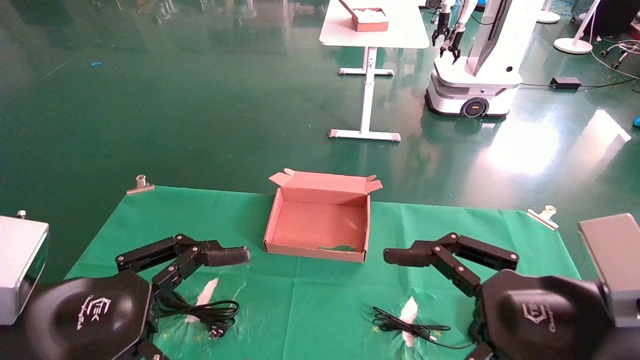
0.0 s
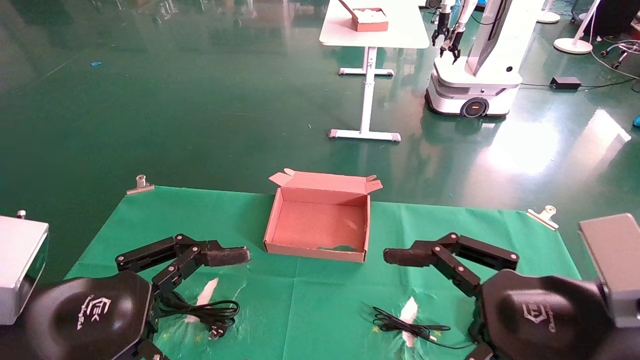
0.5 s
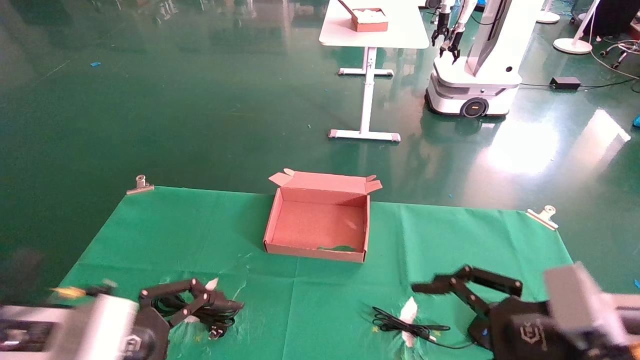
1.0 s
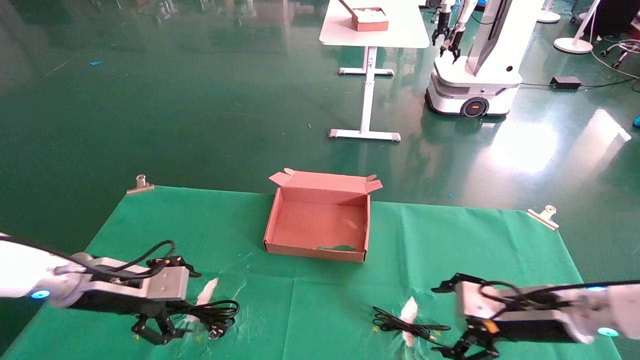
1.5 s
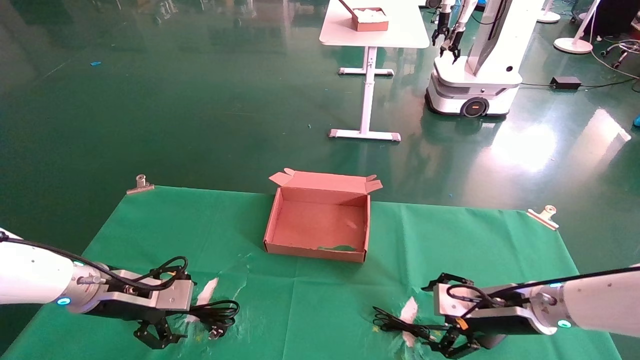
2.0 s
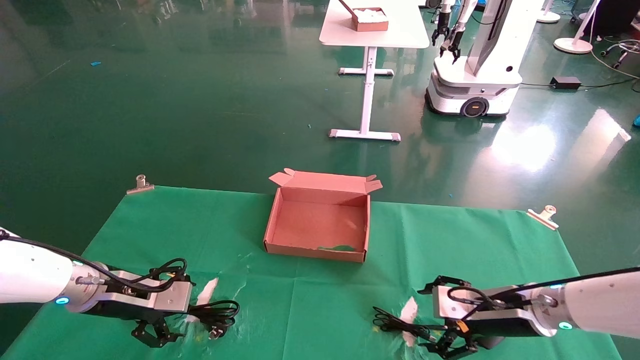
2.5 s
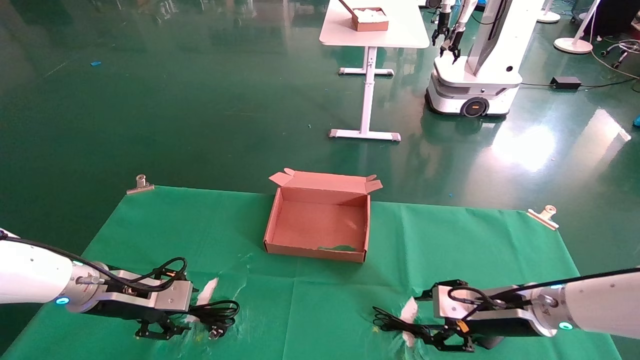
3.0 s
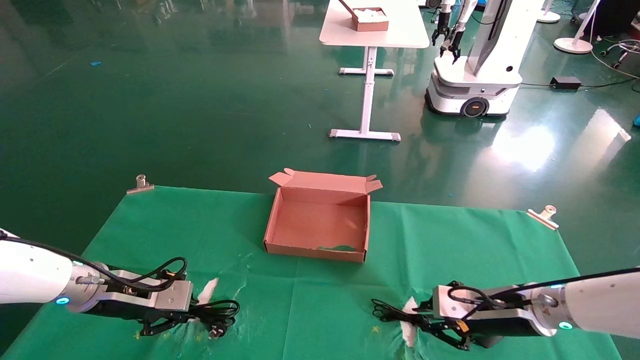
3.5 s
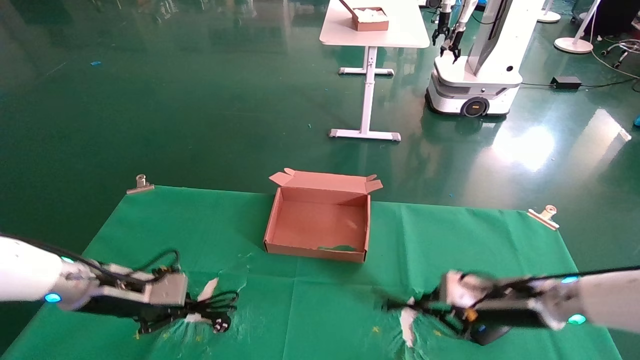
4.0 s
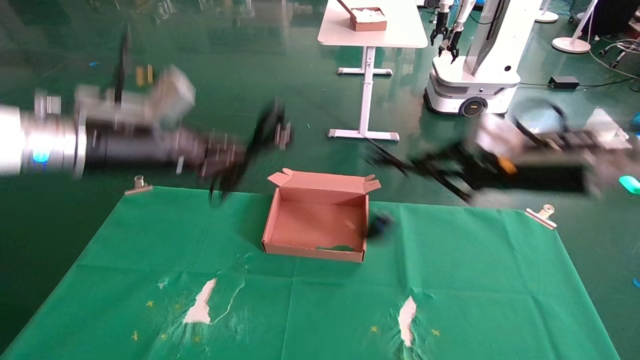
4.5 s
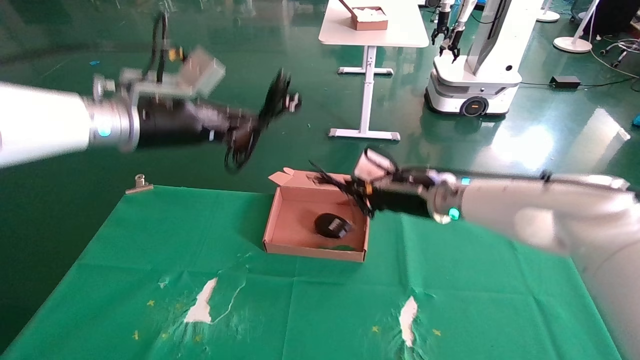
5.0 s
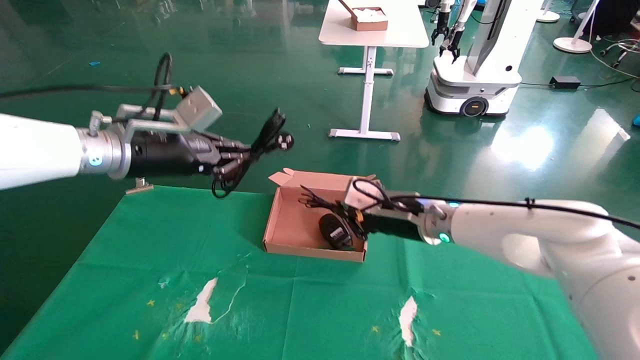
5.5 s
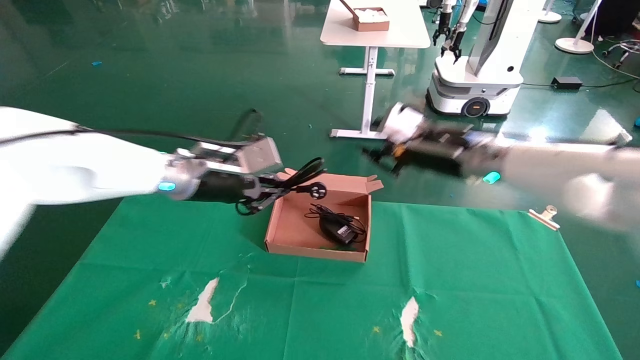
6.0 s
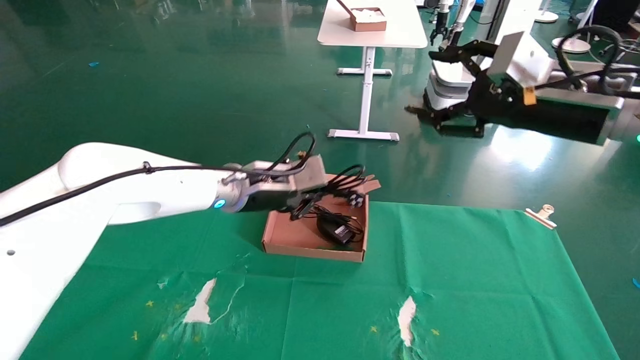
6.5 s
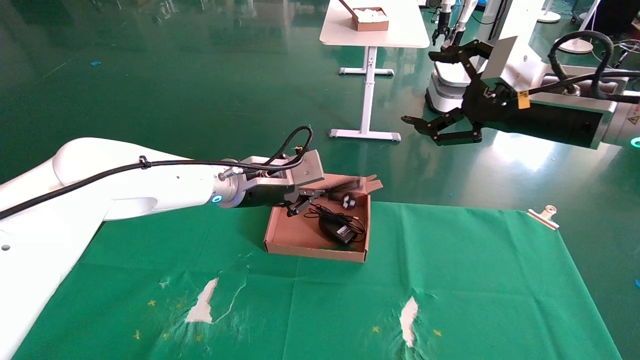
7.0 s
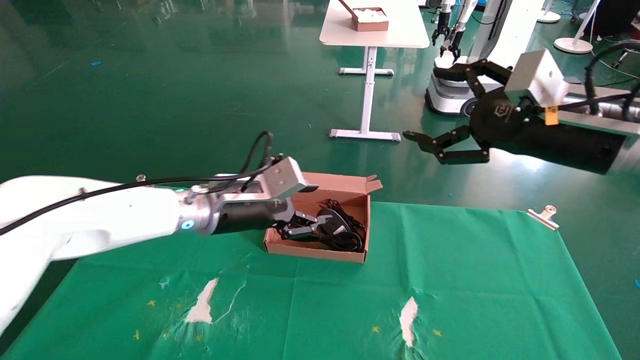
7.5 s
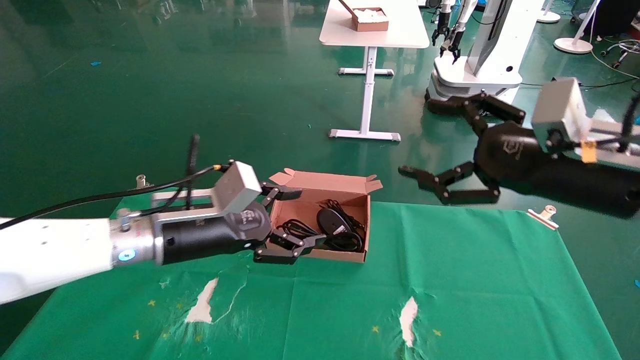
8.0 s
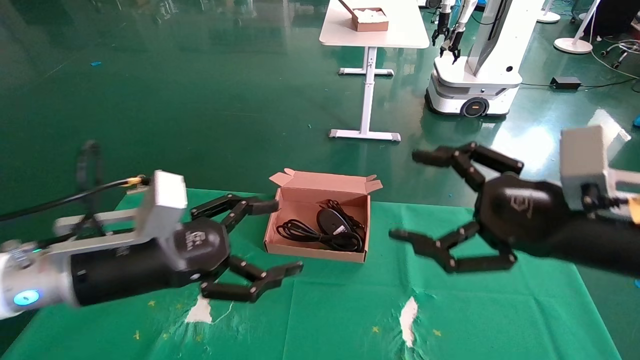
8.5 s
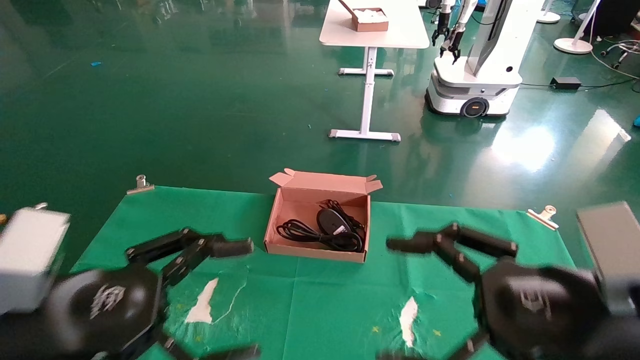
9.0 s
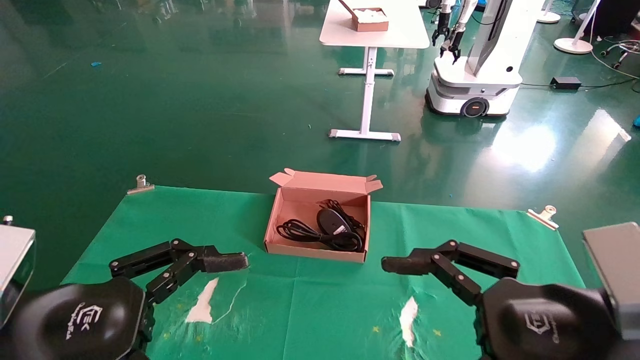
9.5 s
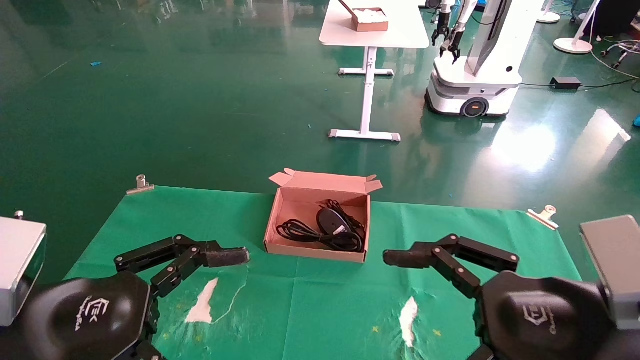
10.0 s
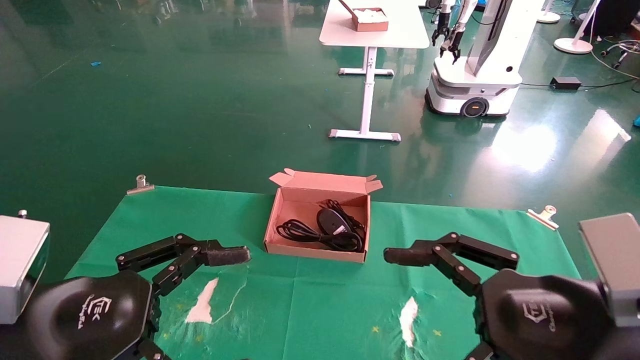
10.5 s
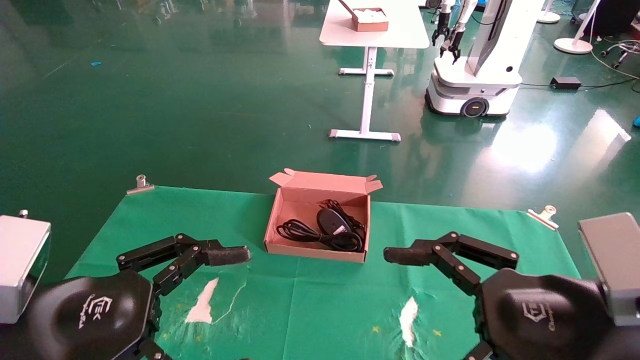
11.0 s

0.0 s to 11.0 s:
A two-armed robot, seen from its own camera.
Step, 1.0 to 3.5 s: Grab and lift both the mouse and power cord from the accessory packaging area at the same time.
Step, 4.0 to 7.0 s: Place the mouse and power cord into the box.
0.0 to 2.0 s: The left gripper shifts approximately 25 cm forward; the right gripper shifts about 25 cm forward and downward.
2.0 to 3.5 s: The left gripper closes its fingers; the right gripper closes up.
3.5 to 5.5 s: The right gripper heads to the left, upward and forward, covering approximately 20 cm; the left gripper goes about 20 cm upward and to the right.
5.5 to 7.5 s: The left gripper heads to the right and downward, covering some 15 cm, and opens its fingers. Meanwhile the right gripper shifts some 25 cm to the right, backward and upward, and opens its fingers.
7.5 to 9.0 s: The left gripper is displaced backward and to the left by roughly 25 cm, and opens its fingers. The right gripper goes roughly 20 cm backward and downward.
9.0 to 11.0 s: The grippers make only small movements.

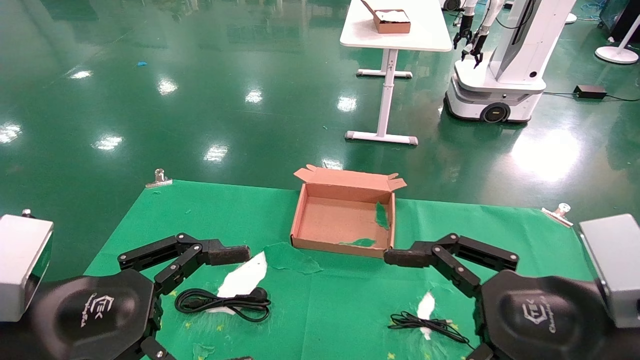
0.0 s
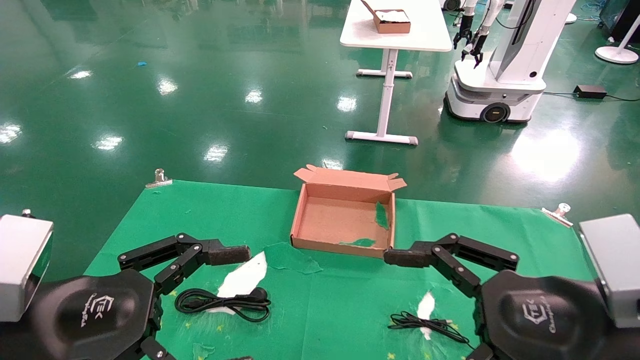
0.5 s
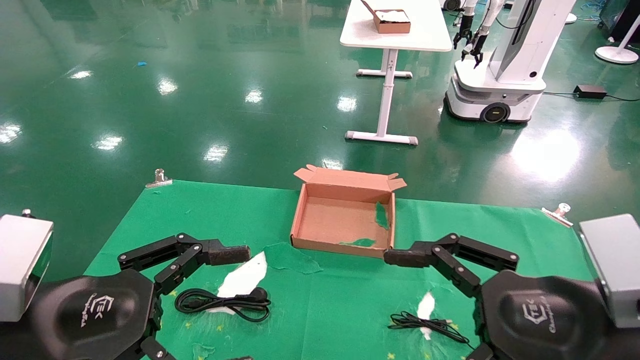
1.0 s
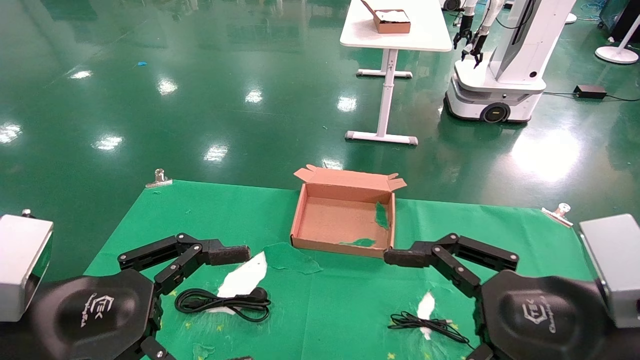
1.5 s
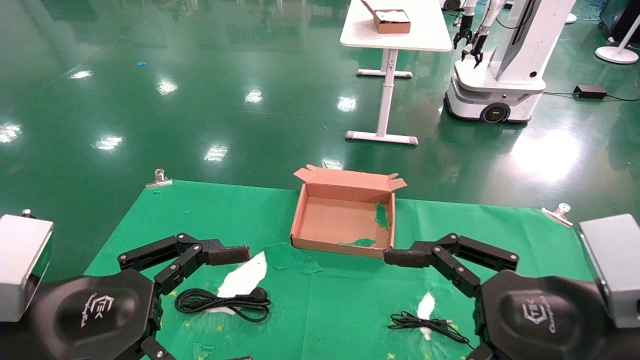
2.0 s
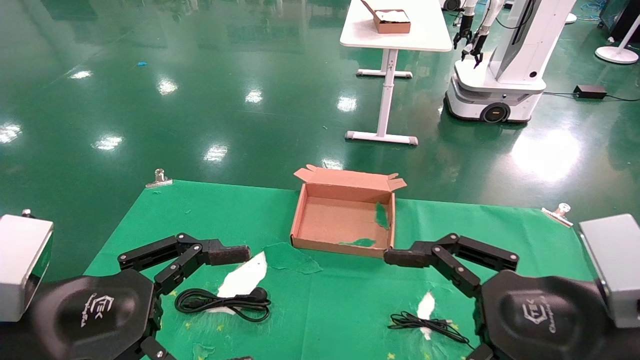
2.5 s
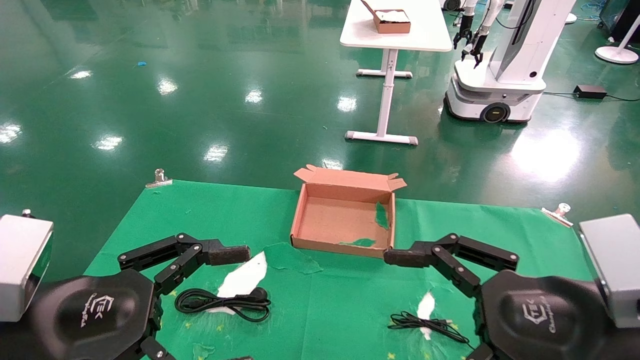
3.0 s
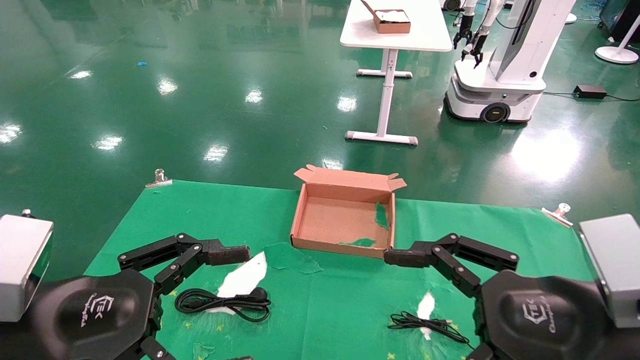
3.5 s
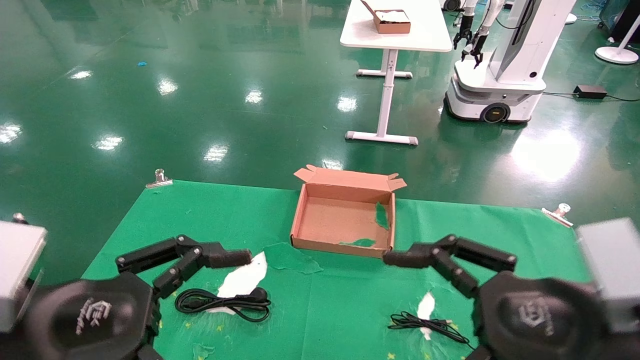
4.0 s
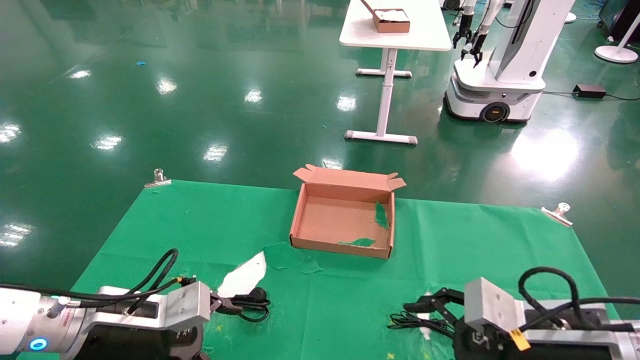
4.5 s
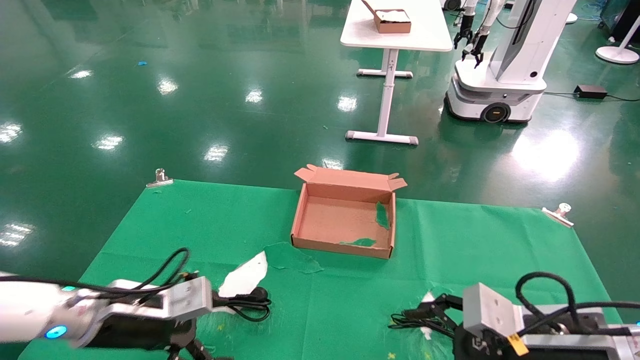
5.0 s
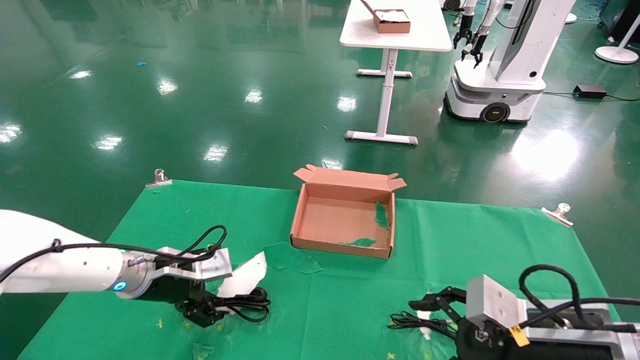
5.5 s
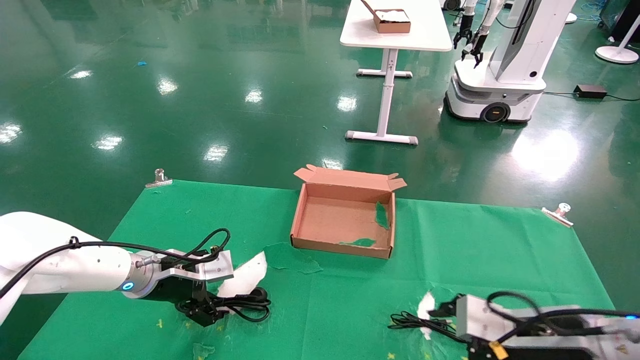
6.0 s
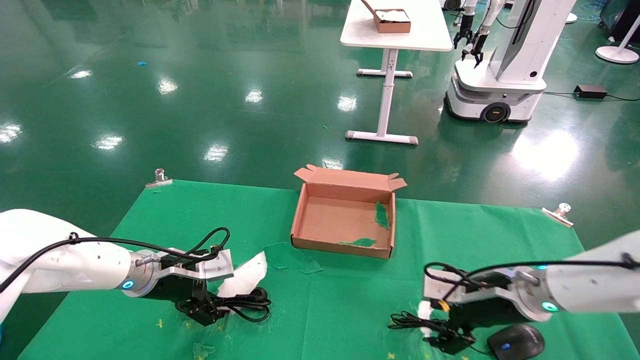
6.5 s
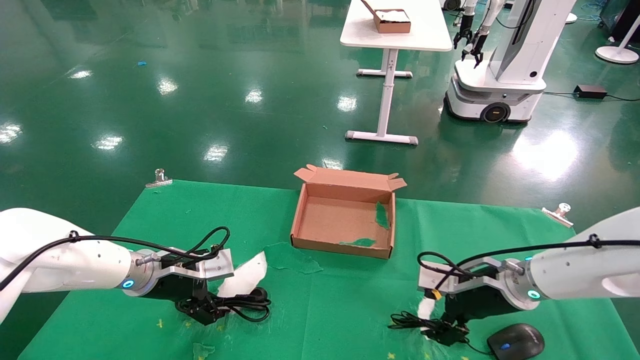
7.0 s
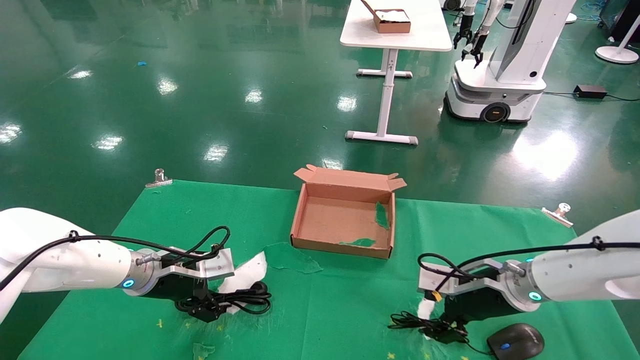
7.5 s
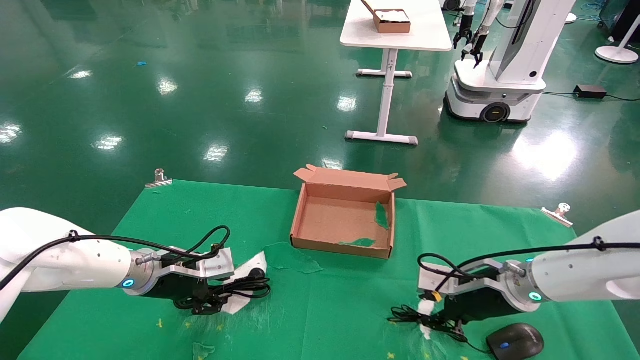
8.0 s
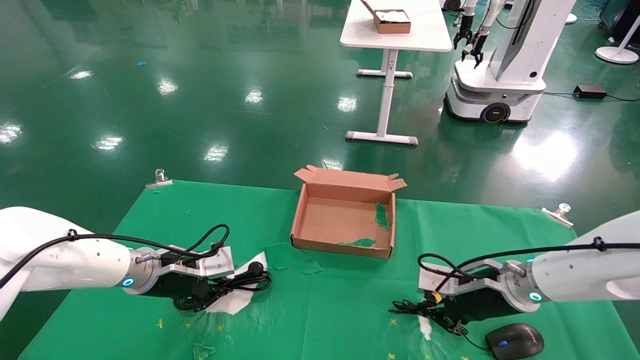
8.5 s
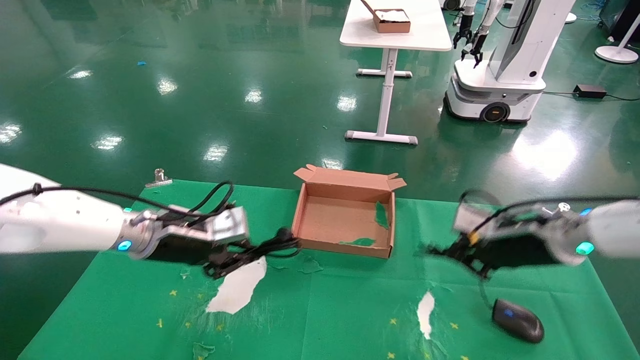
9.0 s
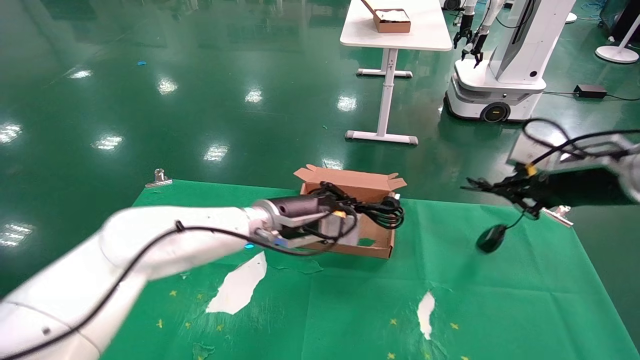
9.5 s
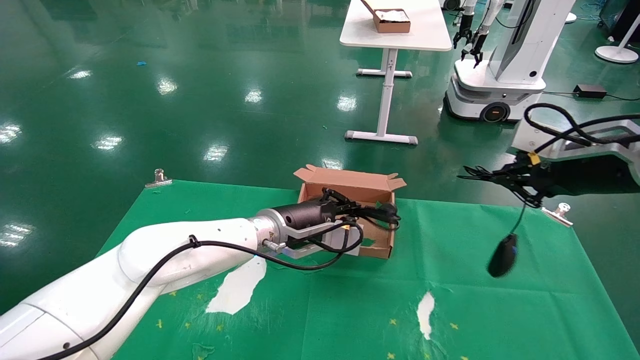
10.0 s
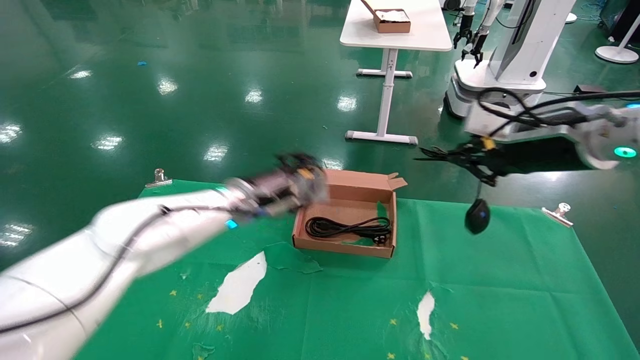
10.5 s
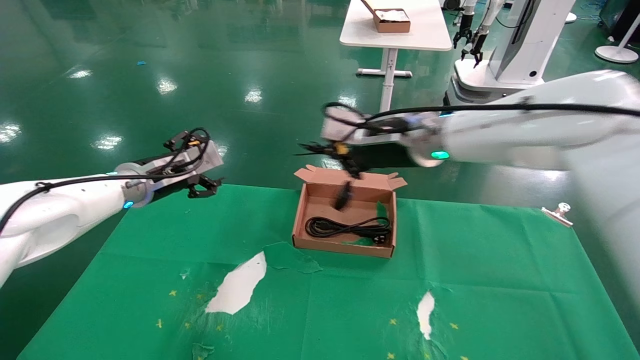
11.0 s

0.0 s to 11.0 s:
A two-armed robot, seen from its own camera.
Step, 5.0 to 9.0 s: Grab and lift both the mouse and power cord from the accessory packaging area at the same time.
0.0 to 3.5 s: Neither gripper changes place.
3.5 to 5.5 s: The right gripper travels downward and forward by approximately 10 cm. Meanwhile the left gripper heads forward, covering some 25 cm.
5.5 to 7.5 s: The right gripper shifts roughly 15 cm forward.
7.5 to 9.0 s: The right gripper moves upward, some 10 cm, and closes its fingers. The left gripper travels upward and to the right by approximately 10 cm, and closes.
9.0 to 11.0 s: The right gripper heads to the left and upward, covering approximately 20 cm; the left gripper goes roughly 5 cm upward, travels to the right and back again, about 15 cm each way, and opens up.
